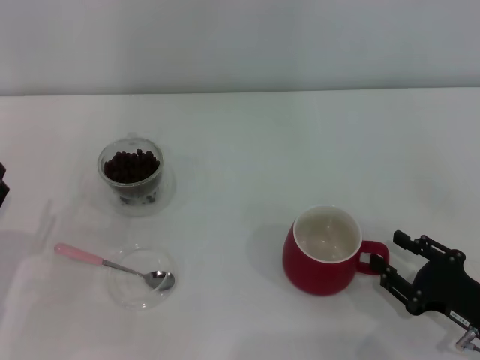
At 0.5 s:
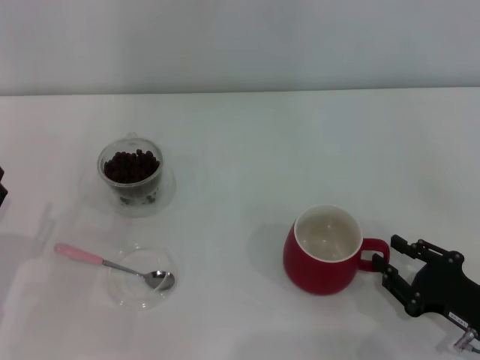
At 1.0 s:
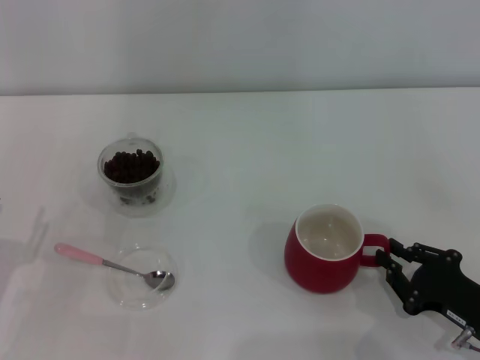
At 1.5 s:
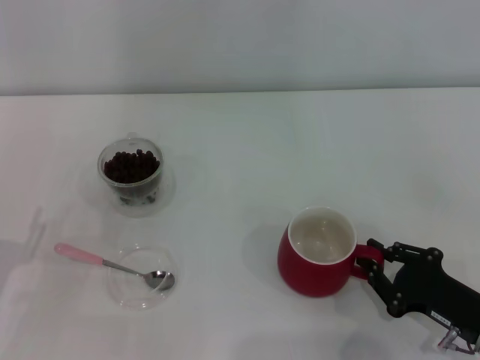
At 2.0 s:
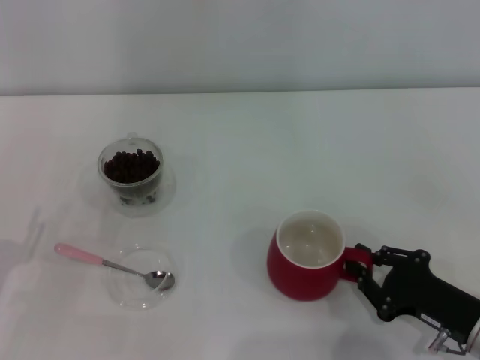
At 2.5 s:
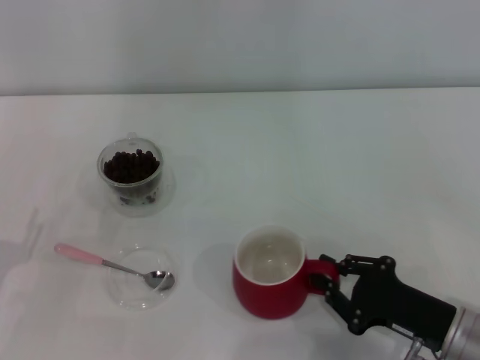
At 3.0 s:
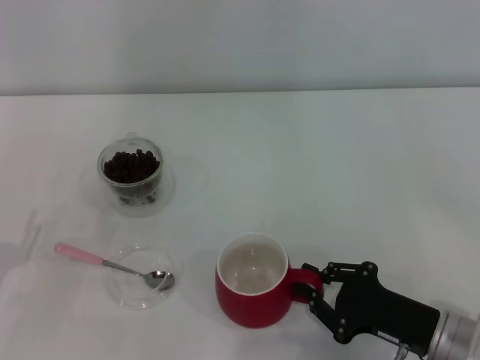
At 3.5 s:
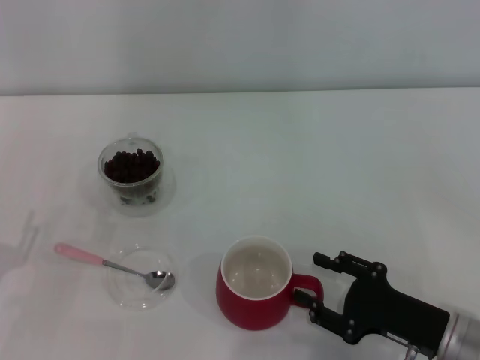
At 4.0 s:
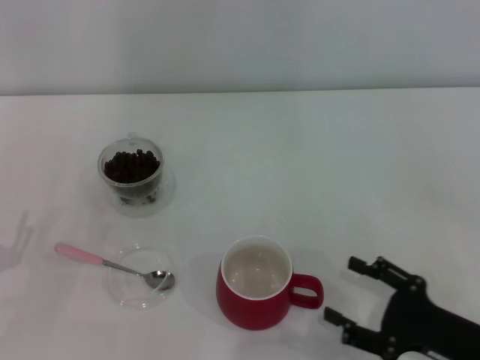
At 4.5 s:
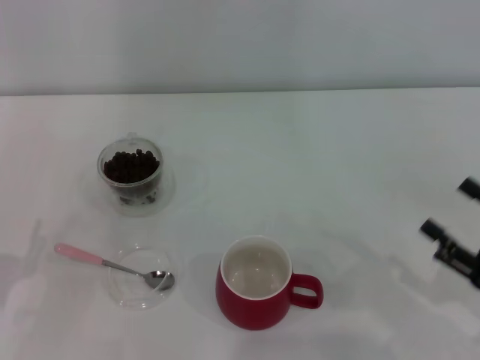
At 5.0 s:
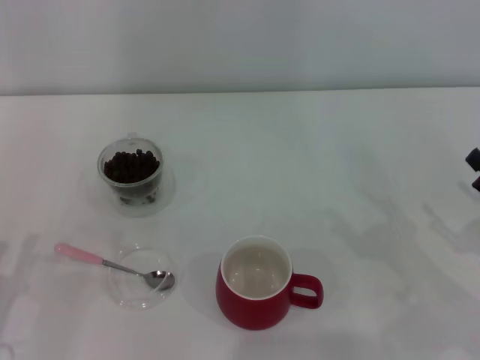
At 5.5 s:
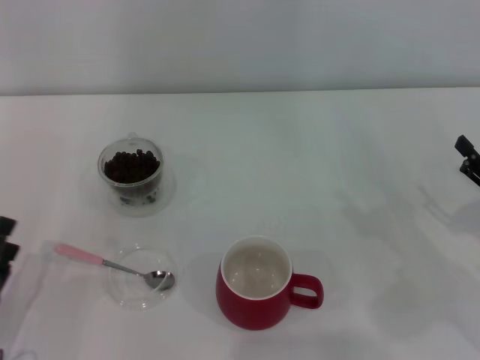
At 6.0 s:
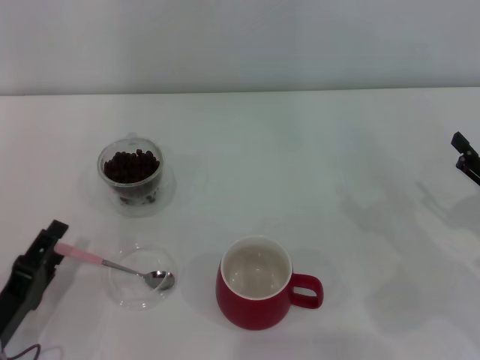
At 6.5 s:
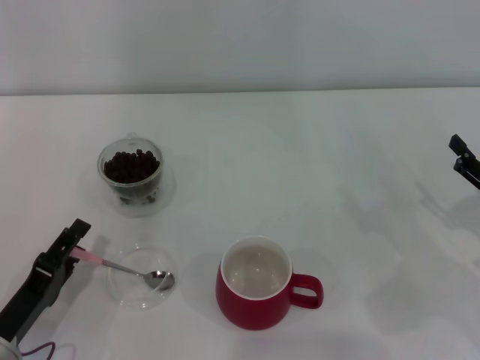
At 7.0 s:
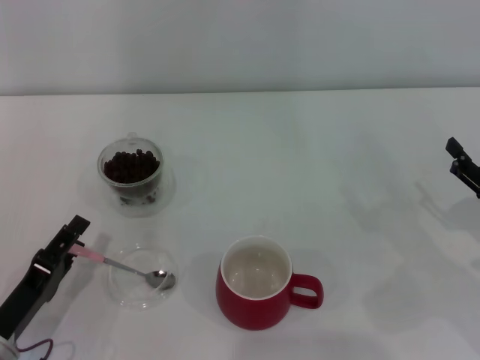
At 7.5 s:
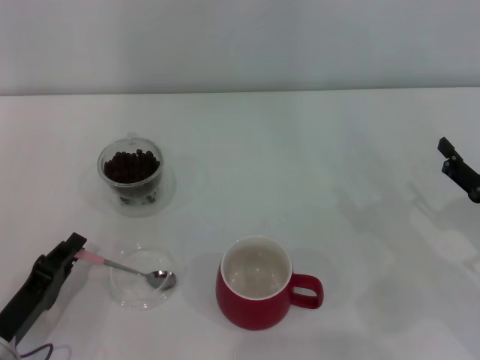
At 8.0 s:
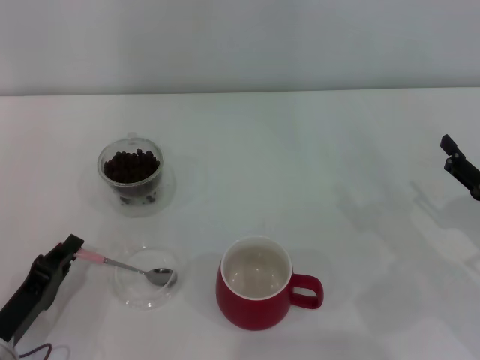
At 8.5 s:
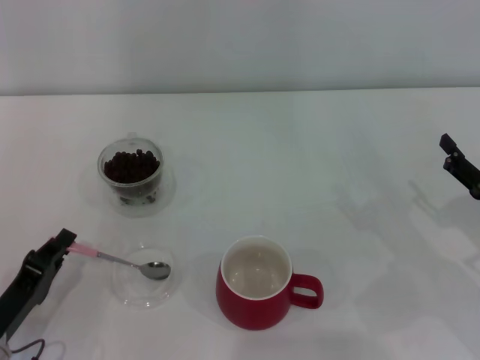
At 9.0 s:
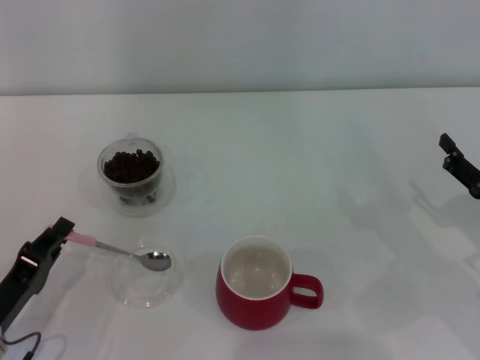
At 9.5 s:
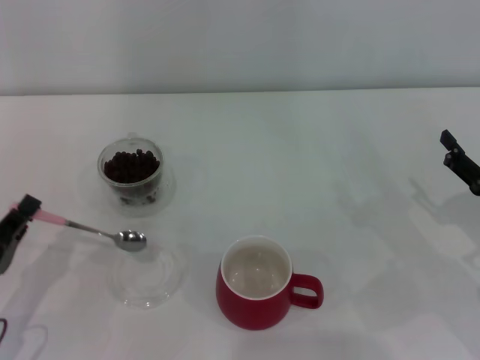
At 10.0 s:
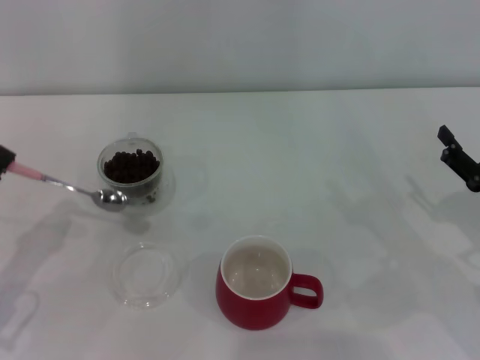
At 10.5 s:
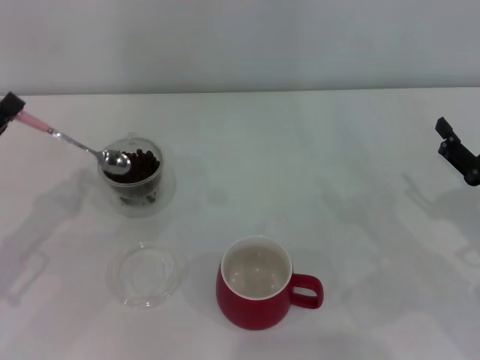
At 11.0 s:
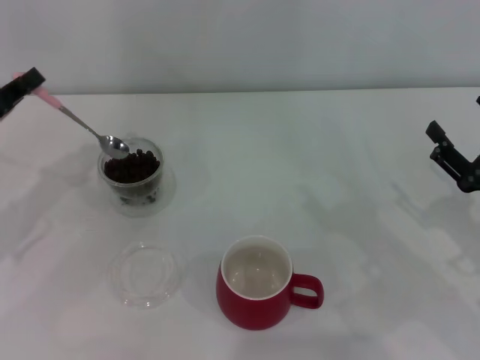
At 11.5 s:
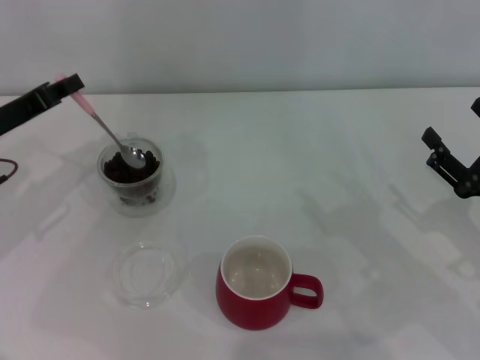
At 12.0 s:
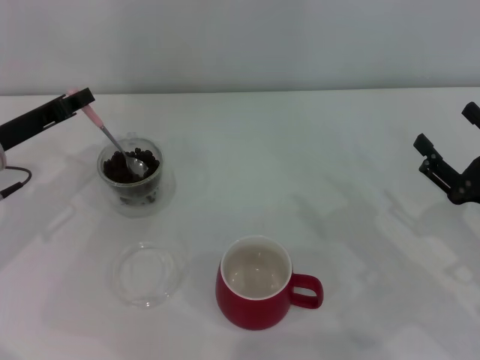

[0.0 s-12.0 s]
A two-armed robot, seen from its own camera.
Task of the whole recording: Use a pink spoon to take out the coffee beans from the glass and pour them into the red cup.
Step, 0.0 to 4.0 s: Move the cup to the center of view with the left gripper.
Step, 4.5 to 9.5 s: Pick up the spoon with the right gripper.
0.0 to 2.0 s: The right gripper closes up.
2.0 to 4.0 s: The right gripper opens its fingers.
4.0 to 6.0 s: The left gripper goes approximately 5 cm to the right. Meanwhile the right gripper moves to the right and forward, roughly 10 cm.
6.0 to 8.0 s: The left gripper closes its fingers.
8.0 to 10.0 s: The left gripper travels upward by approximately 5 cm.
10.0 to 12.0 s: The left gripper shifts about 15 cm forward.

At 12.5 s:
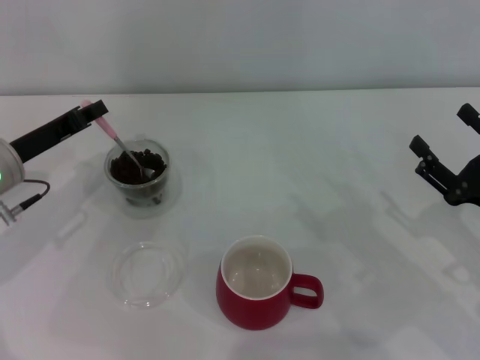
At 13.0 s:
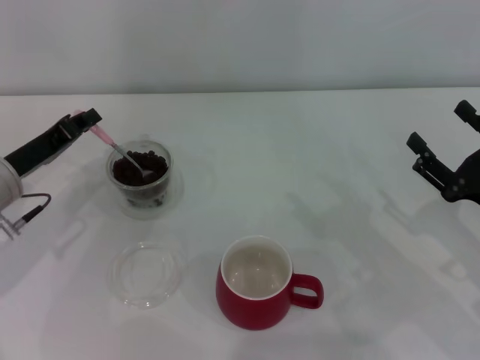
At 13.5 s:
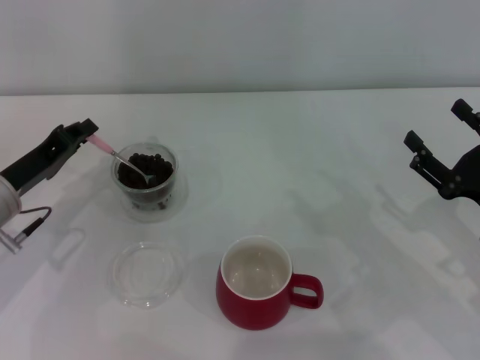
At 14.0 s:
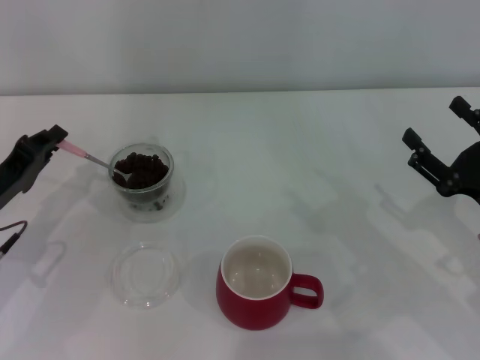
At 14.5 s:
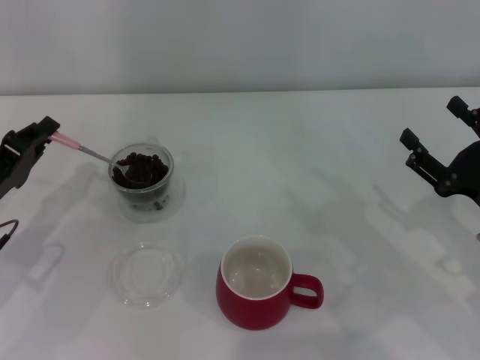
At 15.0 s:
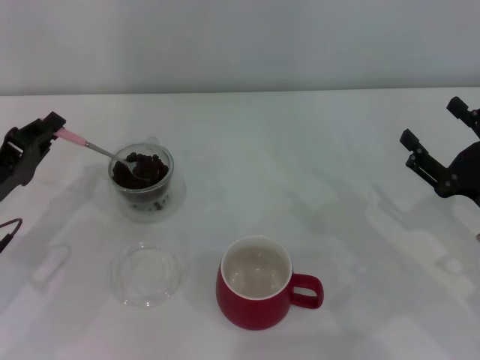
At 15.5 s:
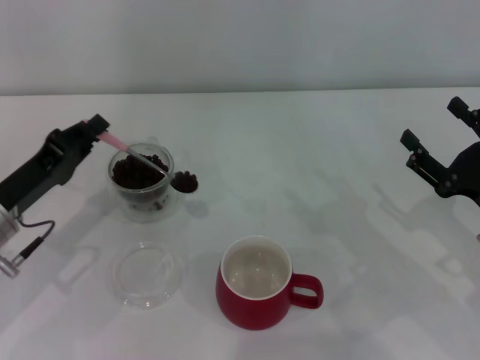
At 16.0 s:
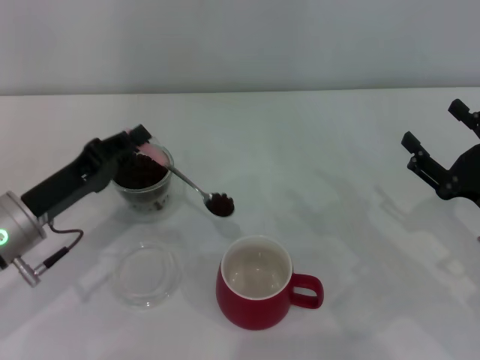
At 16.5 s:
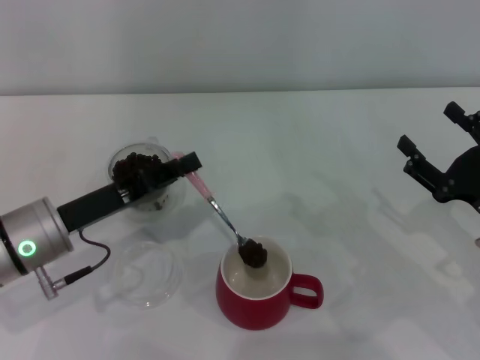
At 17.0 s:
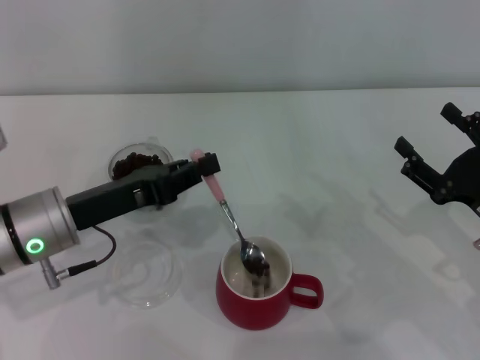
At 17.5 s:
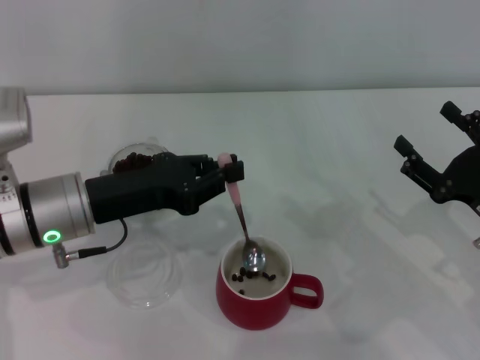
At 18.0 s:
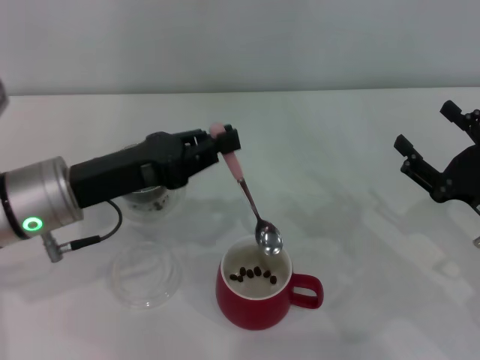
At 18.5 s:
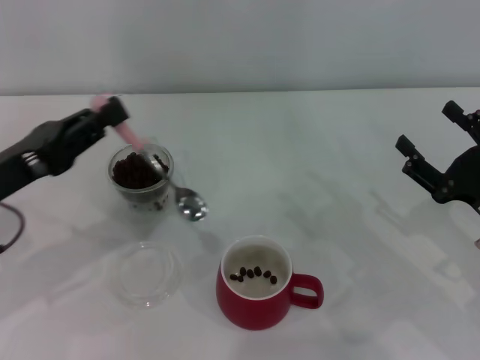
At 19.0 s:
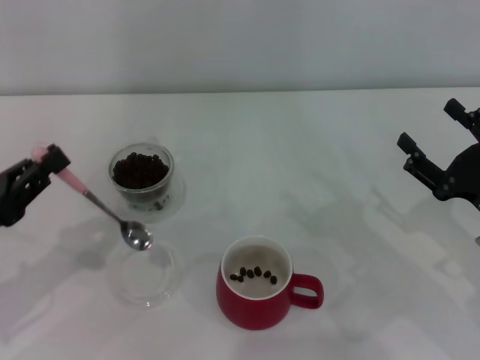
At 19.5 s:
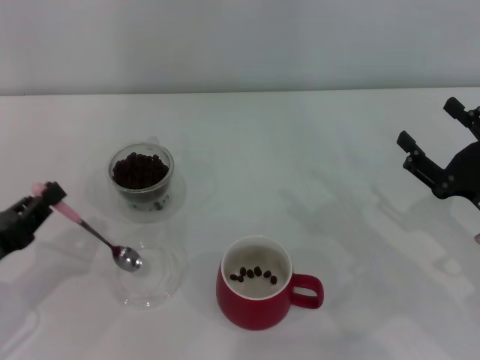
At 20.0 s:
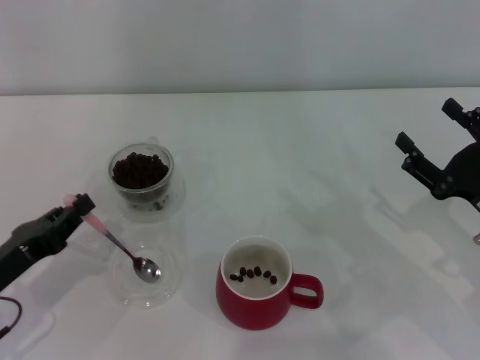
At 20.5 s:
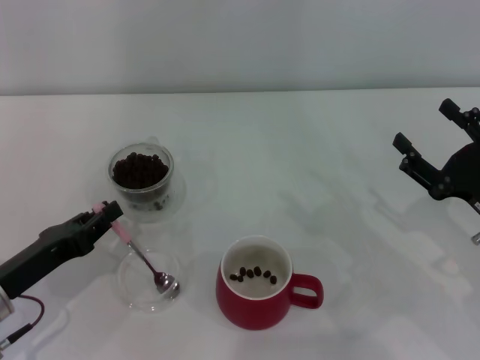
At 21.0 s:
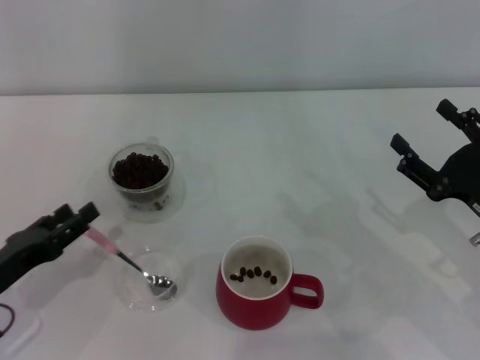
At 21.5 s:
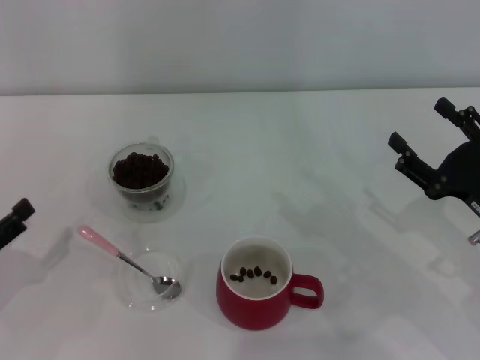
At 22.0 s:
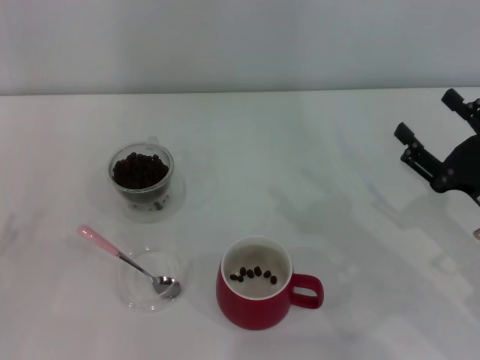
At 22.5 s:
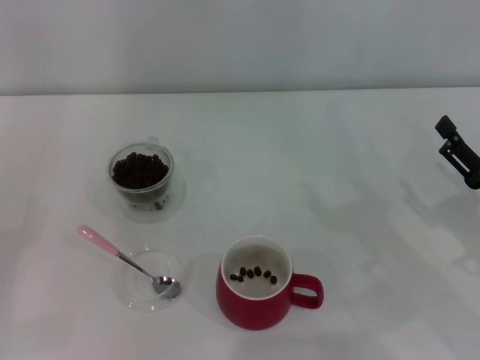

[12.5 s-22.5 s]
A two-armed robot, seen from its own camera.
Task of the whole recording: Use a pink spoon to take out the coffee beans from the glass and pour them into the red cup.
12.5 to 14.5 s: The left gripper shifts about 5 cm backward.
14.5 to 16.5 s: The left gripper shifts roughly 10 cm to the right.
16.5 to 18.5 s: The left gripper shifts about 10 cm to the left and upward.
18.5 to 20.5 s: The left gripper heads downward, covering approximately 10 cm.
20.5 to 22.5 s: The left gripper goes roughly 15 cm to the left, and opens its fingers.
